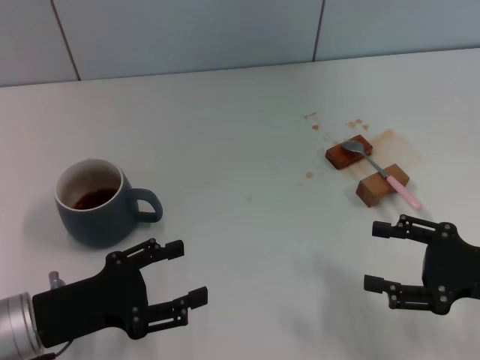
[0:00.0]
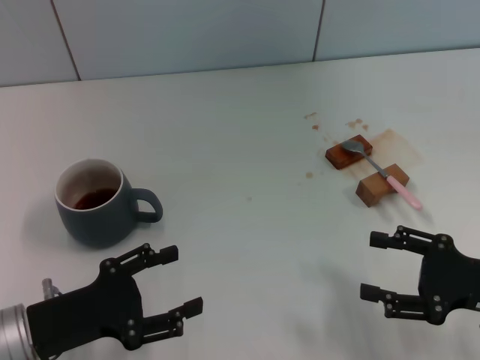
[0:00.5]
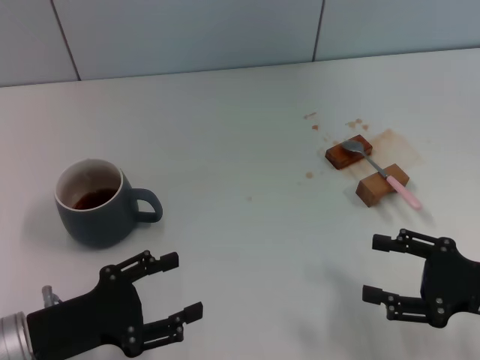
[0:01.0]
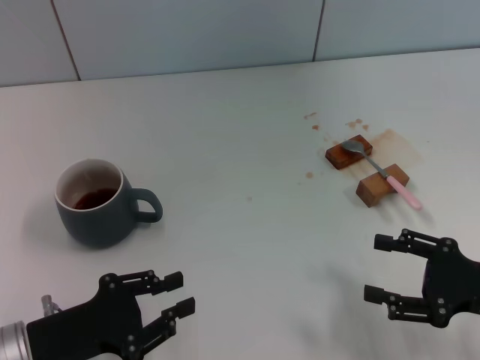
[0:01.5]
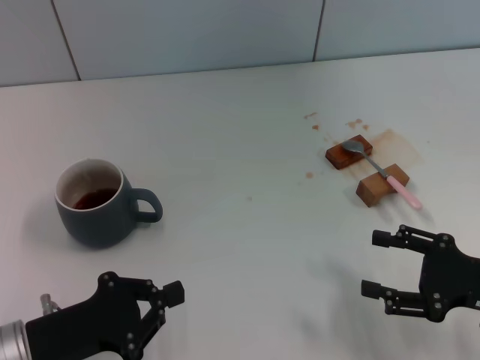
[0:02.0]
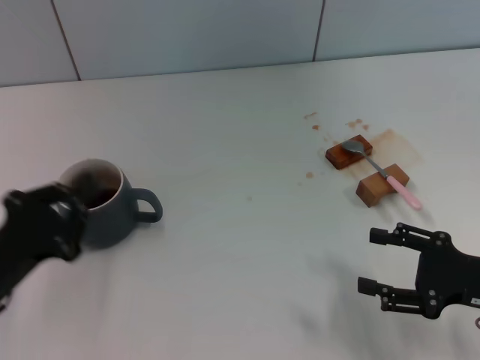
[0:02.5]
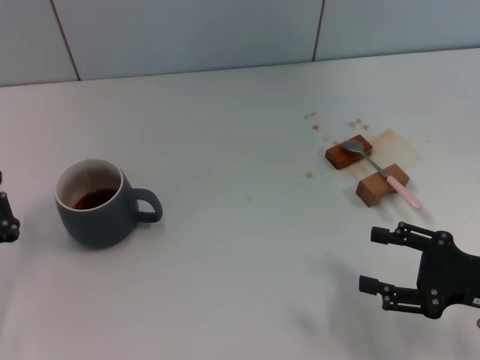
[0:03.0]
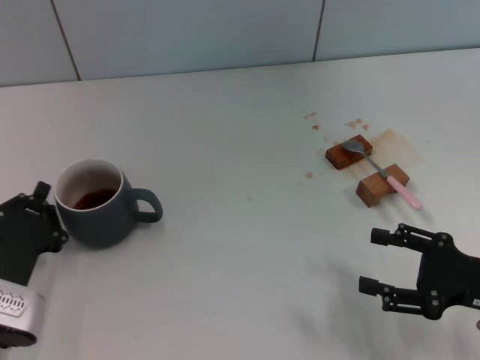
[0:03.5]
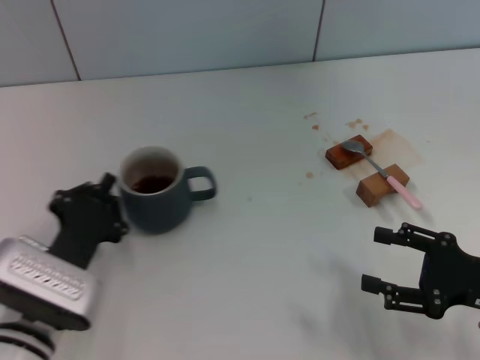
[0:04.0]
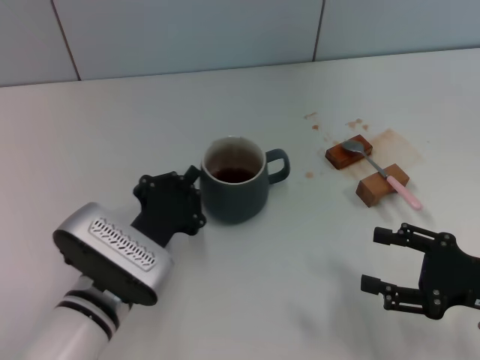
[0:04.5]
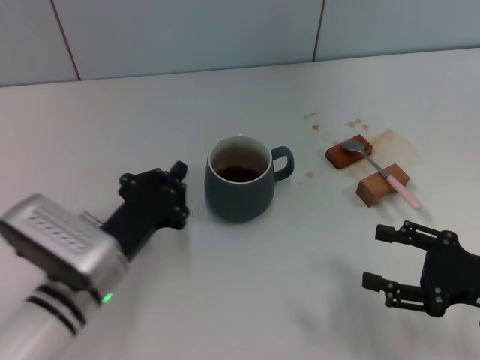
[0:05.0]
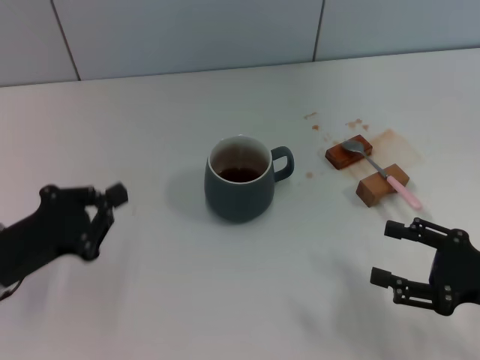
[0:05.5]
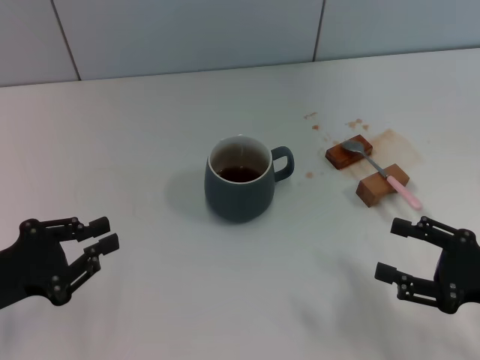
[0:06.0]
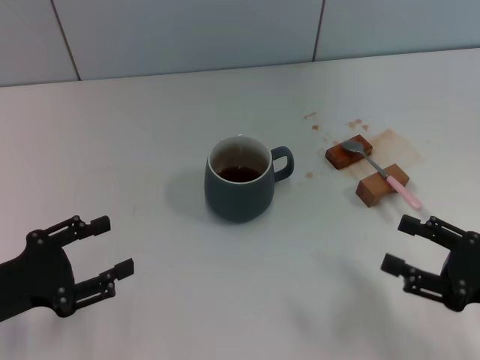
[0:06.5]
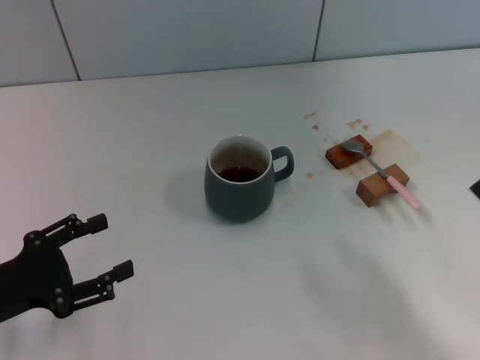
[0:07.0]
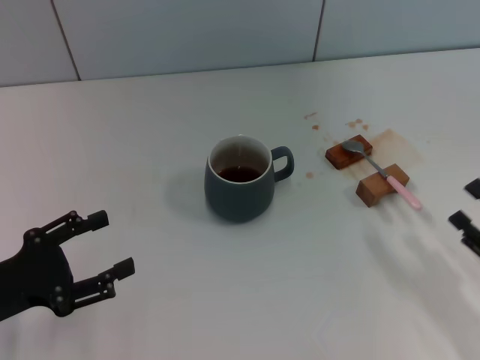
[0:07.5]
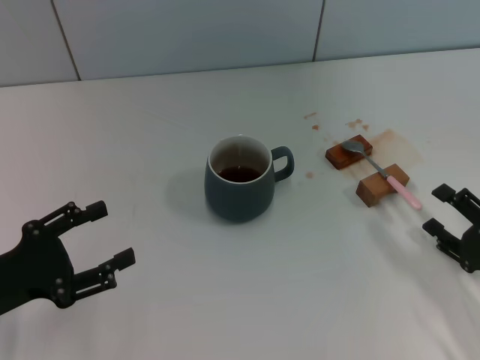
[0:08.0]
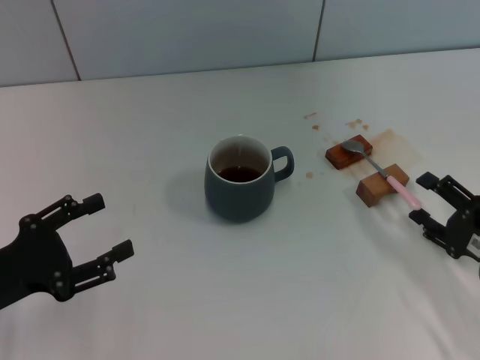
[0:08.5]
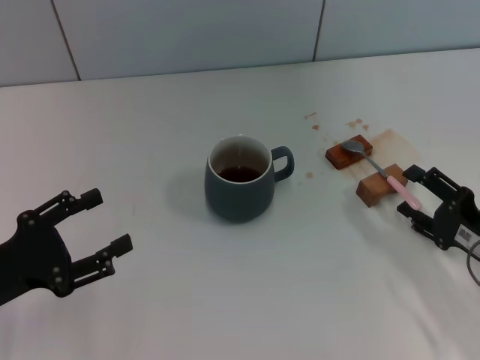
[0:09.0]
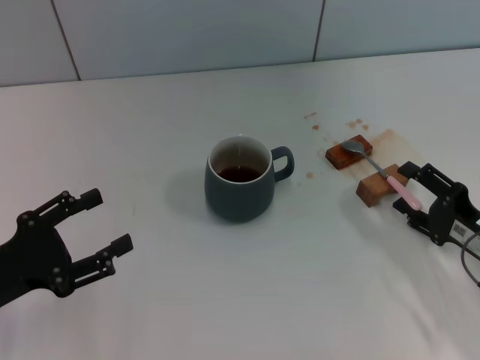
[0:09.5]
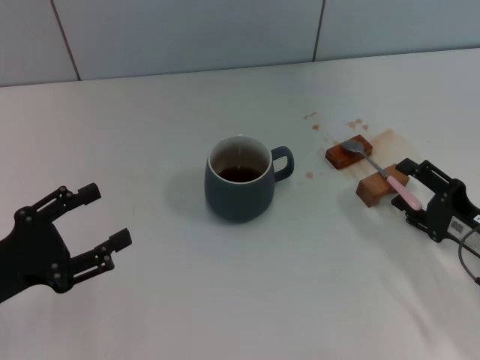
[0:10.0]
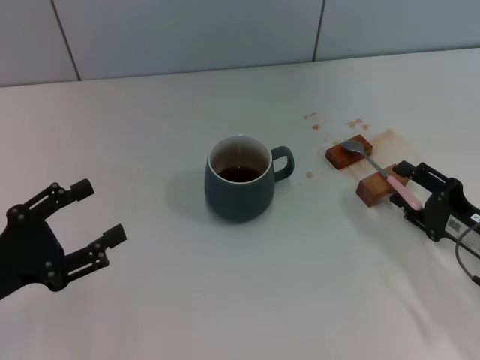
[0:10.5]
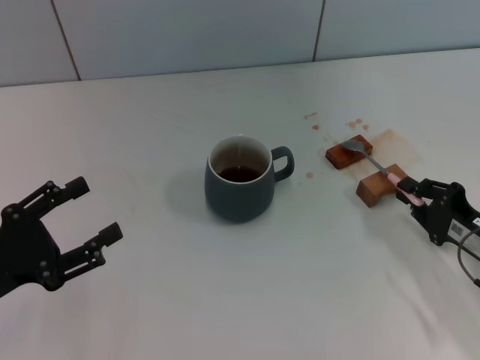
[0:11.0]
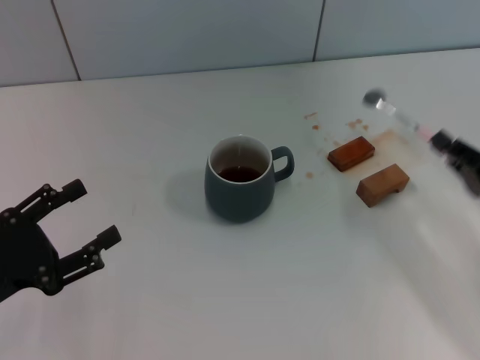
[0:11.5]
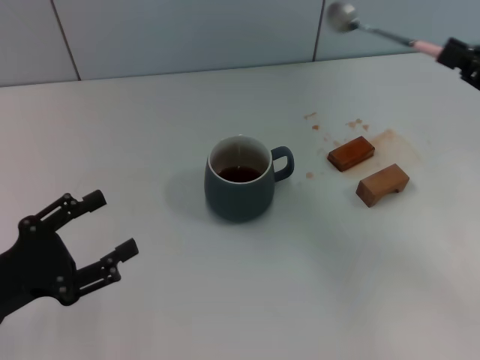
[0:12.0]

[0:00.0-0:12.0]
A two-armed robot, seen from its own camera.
Task of the whole recording: Move the grey cup to the center, lift the pink spoon, stir it three times in the cup, and put the spoon into the cup.
Step, 0:00.0 to 0:05.0: Move the cup with coffee to the center of view with the left gripper.
Step, 0:05.5 to 0:11.0: Pick up the spoon with the right gripper.
0:00.0 to 0:02.0: The left gripper closes its fingers.
0:02.0 to 0:04.0: The left gripper is displaced to the right by some 5 cm.
0:04.0 to 0:06.0: The left gripper moves to the left and upward, roughly 15 cm.
0:06.0 to 0:08.0: The left gripper opens its fingers.
0:08.0 to 0:10.0: The right gripper changes place by roughly 5 cm.
0:10.0 to 0:12.0: The right gripper moves upward, roughly 15 cm, and closes its fingers.

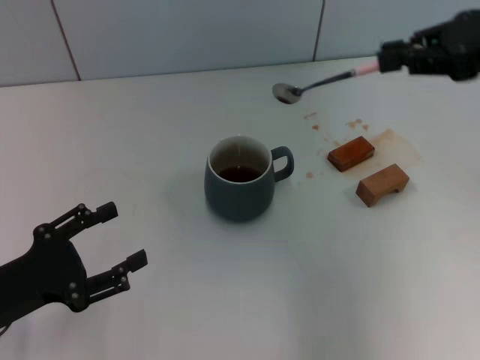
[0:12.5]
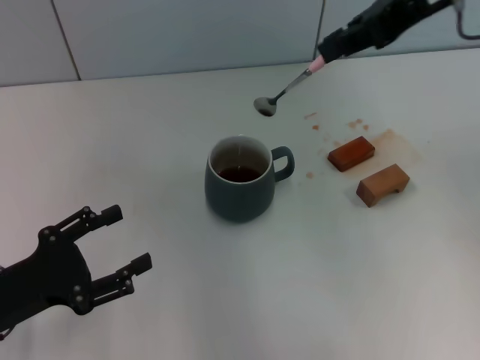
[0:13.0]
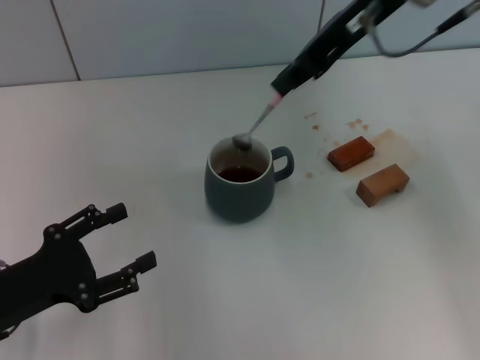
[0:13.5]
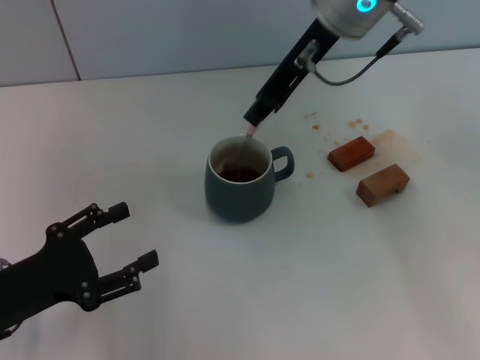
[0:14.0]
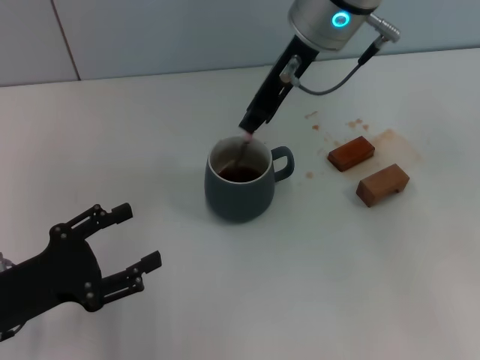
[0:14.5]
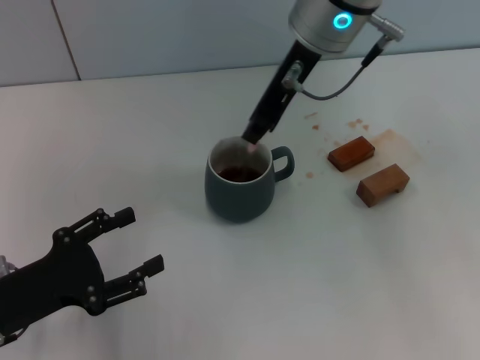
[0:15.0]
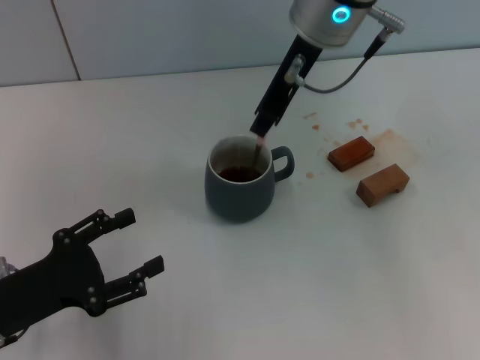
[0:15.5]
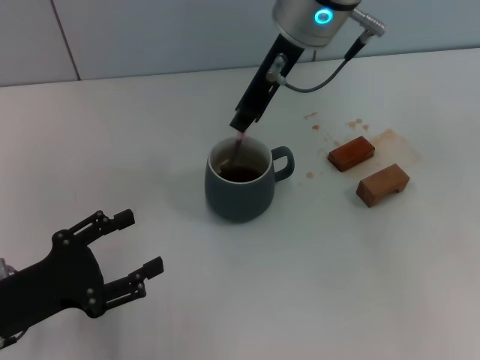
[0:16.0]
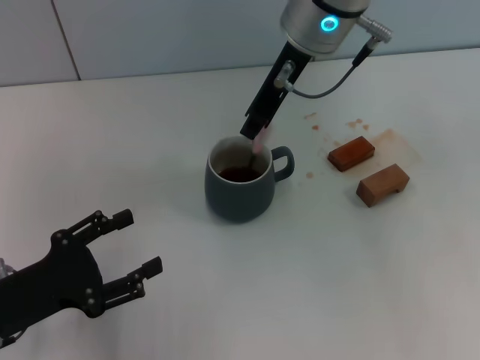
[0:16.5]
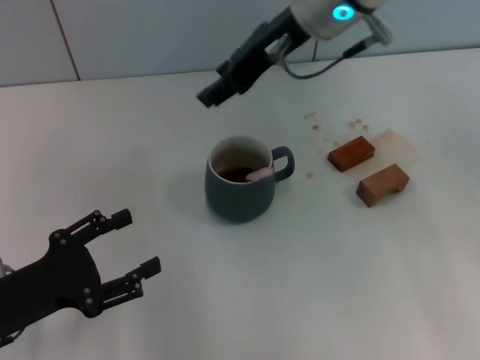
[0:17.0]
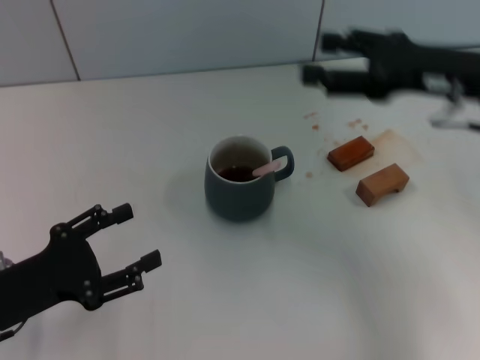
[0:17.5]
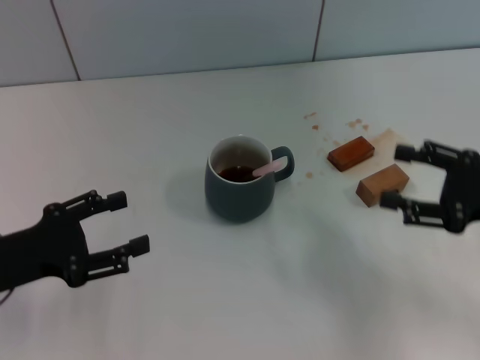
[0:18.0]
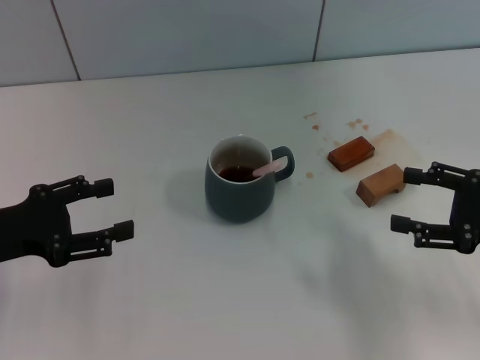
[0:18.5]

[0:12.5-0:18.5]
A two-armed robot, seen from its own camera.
Task of the whole recording: Move the grey cup to the center, lift the pink spoon, stir it three times in the cup, and put the spoon into the cup.
Step, 0:12.5 to 0:16.5: Stir the coffee in the cup with the right gripper.
0:12.5 to 0:14.5: The right gripper shifts roughly 20 cm to the left and forward.
0:14.5 to 0:16.5: The grippers make only small movements.
0:16.5 to 0:18.5: The left gripper is displaced forward and upward by roughly 10 cm; the right gripper heads to the right, backward and downward, covering approximately 35 cm, and opens.

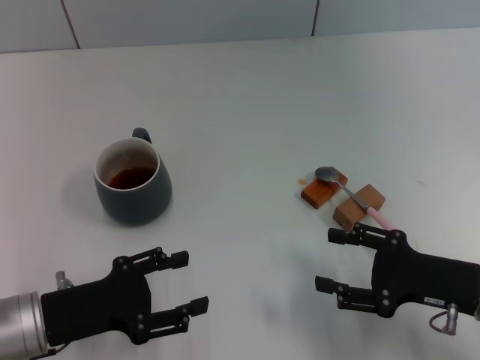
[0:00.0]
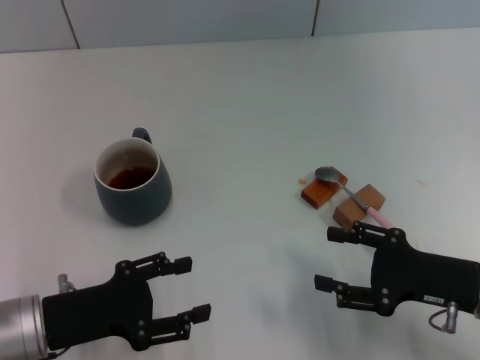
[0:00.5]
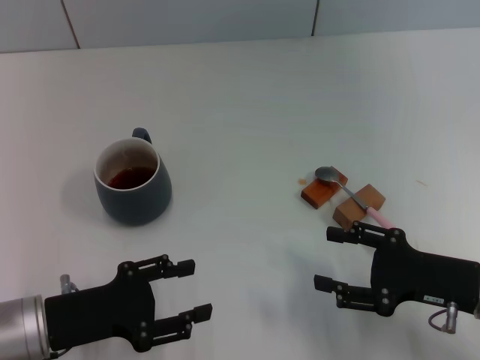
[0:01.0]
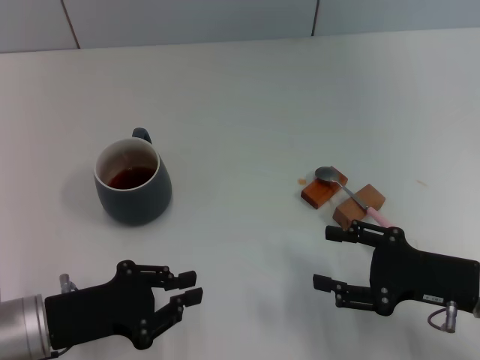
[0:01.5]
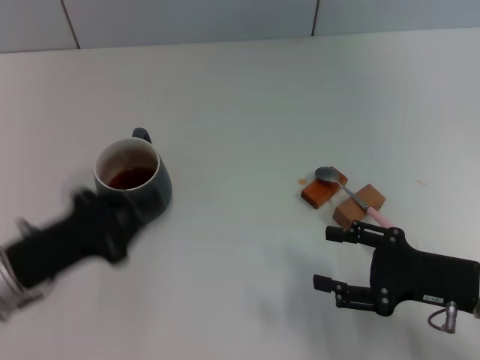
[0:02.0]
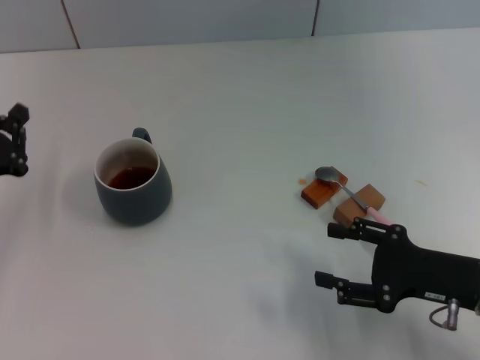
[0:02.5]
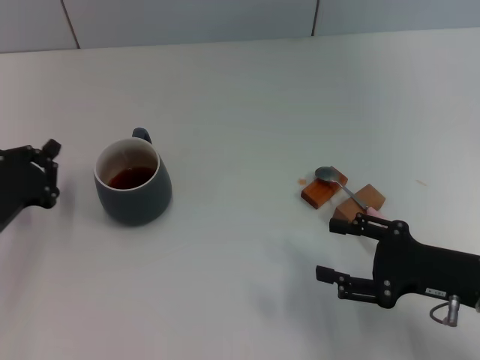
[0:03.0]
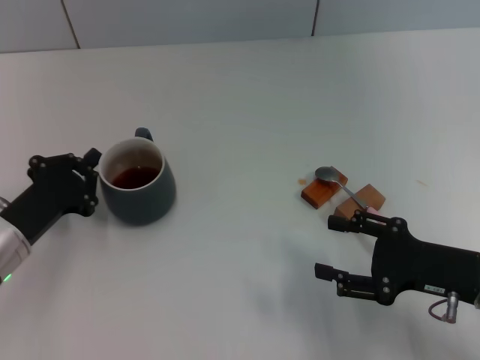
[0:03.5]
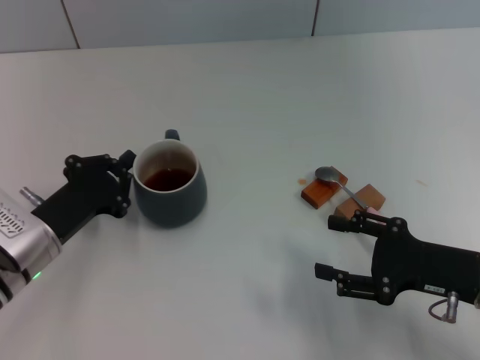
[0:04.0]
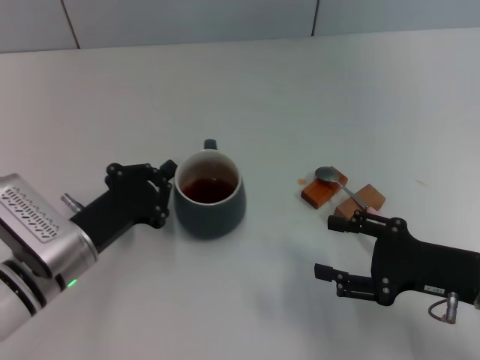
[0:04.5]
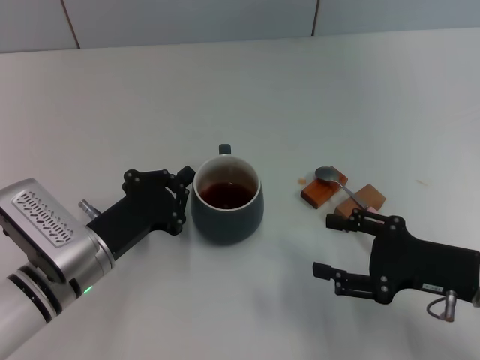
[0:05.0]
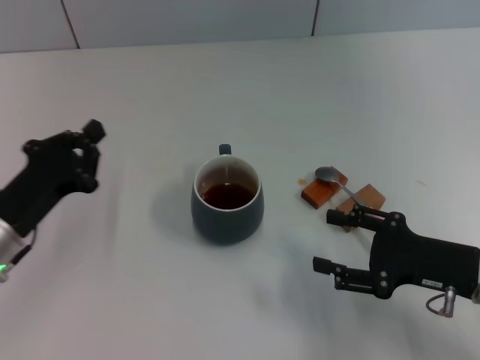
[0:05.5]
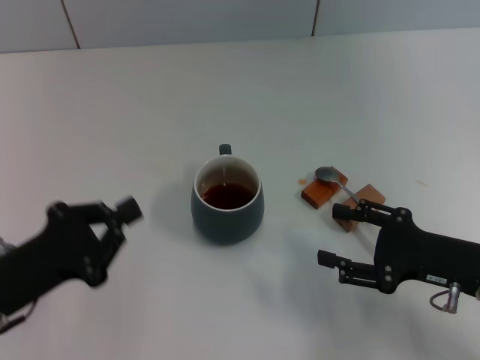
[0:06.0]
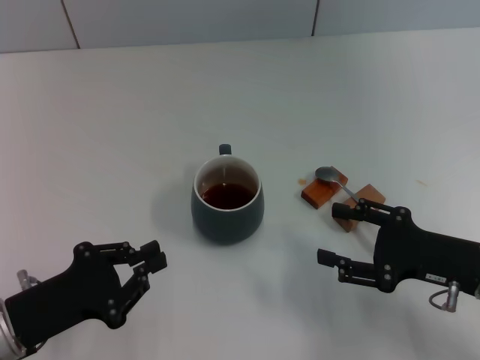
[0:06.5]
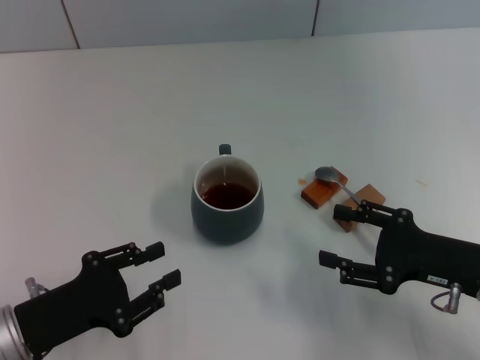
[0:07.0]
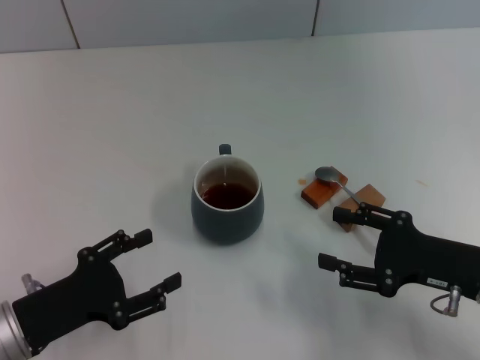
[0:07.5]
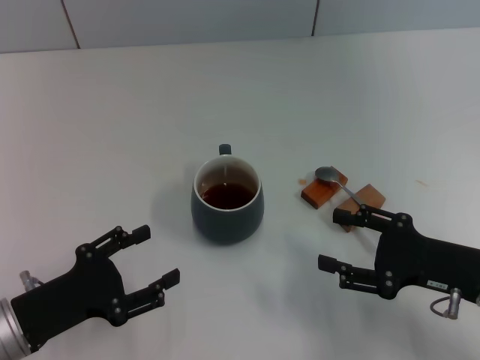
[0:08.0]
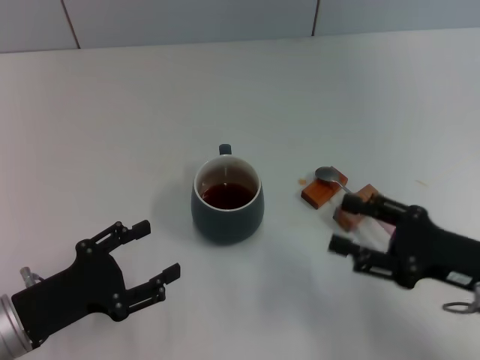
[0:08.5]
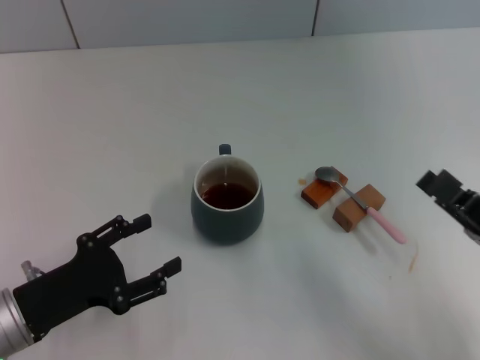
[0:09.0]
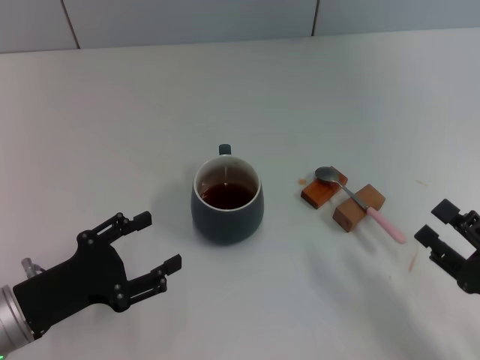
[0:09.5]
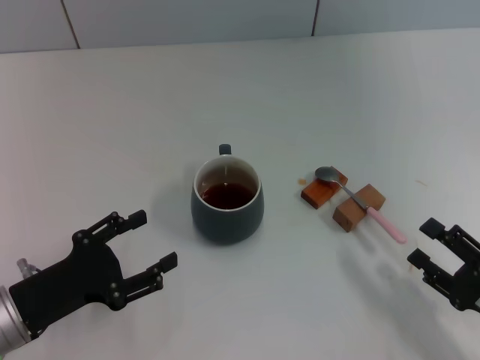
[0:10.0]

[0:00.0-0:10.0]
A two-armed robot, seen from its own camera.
Task of the whole recording: Move the grey cup to the center, lift the pink spoon, stir it three times in the cup, and put the spoon into the cup.
Step, 0:00.0 to 0:04.0: Move the cup with coffee to the center of view with the left gripper.
0:00.0 to 0:02.0: The left gripper closes its fingers.
0:02.0 to 0:04.0: The left gripper reaches about 5 cm to the left, then returns.
0:04.0 to 0:06.0: The left gripper goes some 5 cm backward.
0:06.0 to 0:08.0: The left gripper opens up.
0:08.0 to 0:10.0: The right gripper moves backward, roughly 10 cm.
